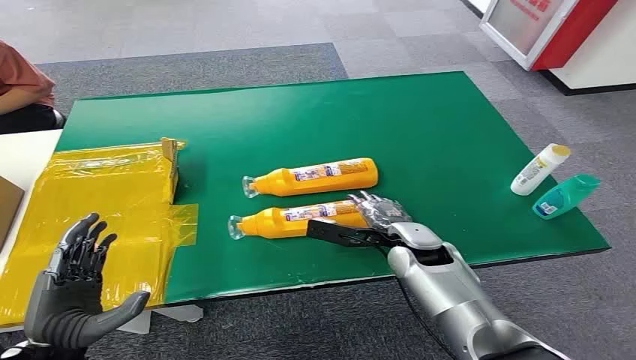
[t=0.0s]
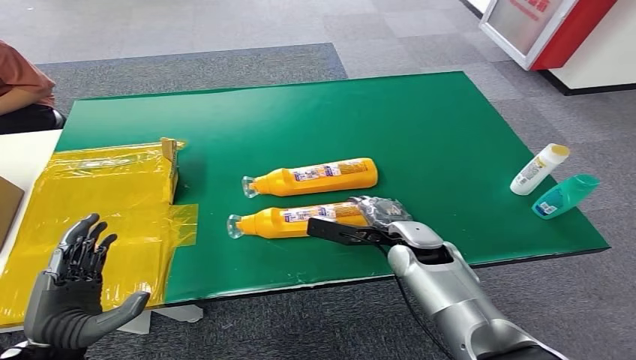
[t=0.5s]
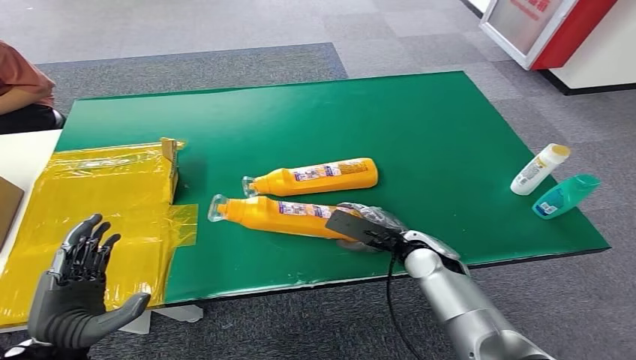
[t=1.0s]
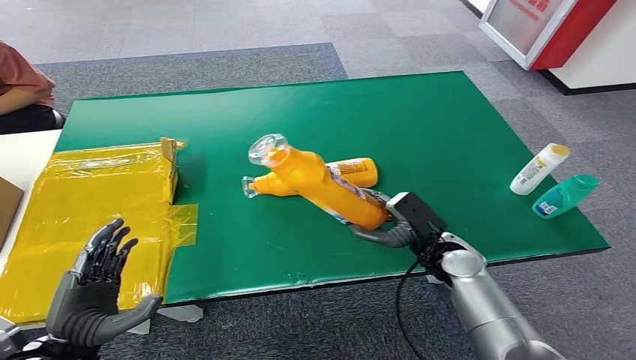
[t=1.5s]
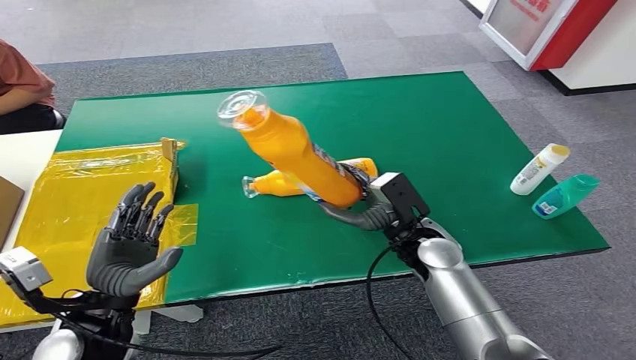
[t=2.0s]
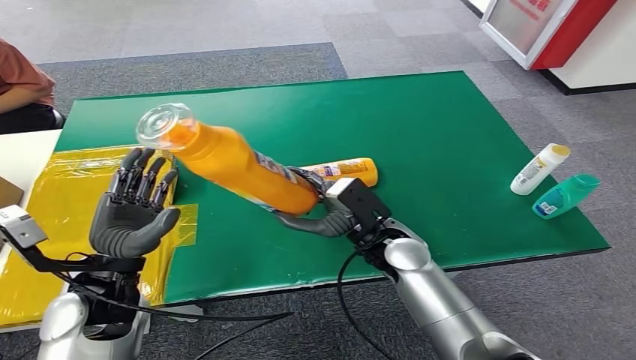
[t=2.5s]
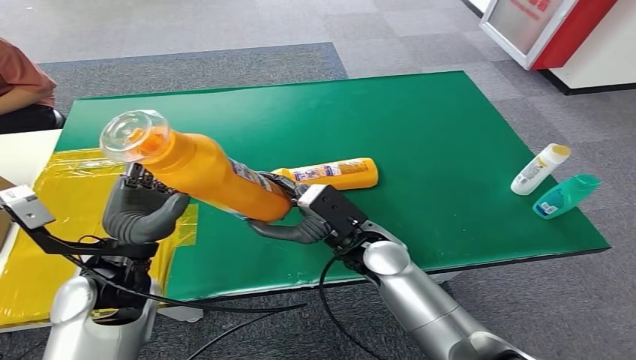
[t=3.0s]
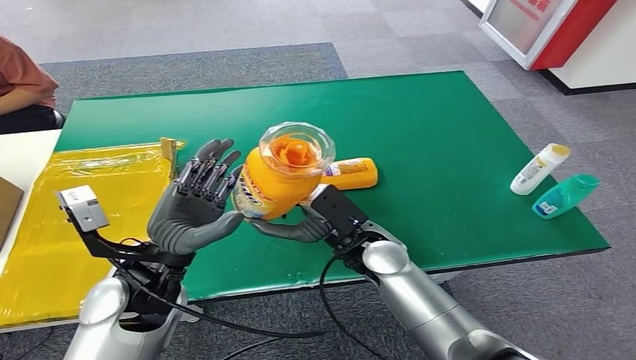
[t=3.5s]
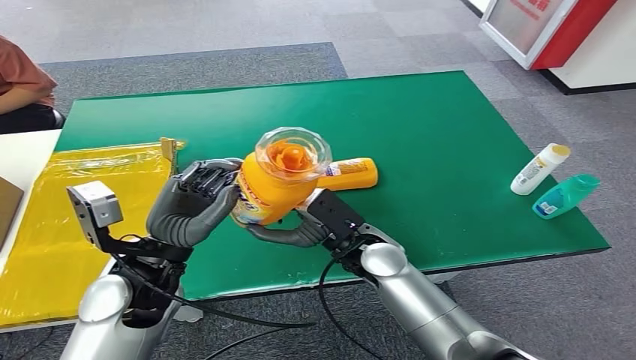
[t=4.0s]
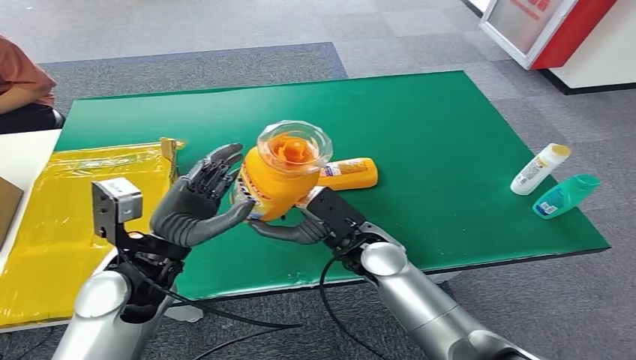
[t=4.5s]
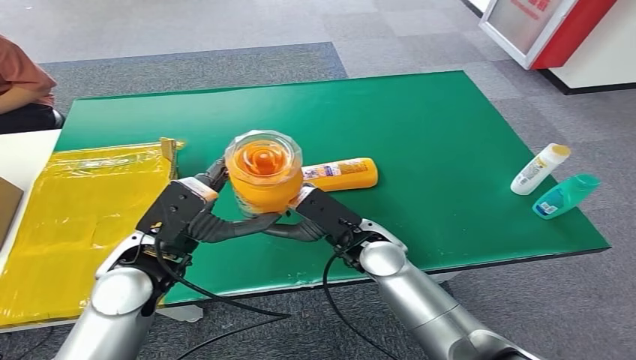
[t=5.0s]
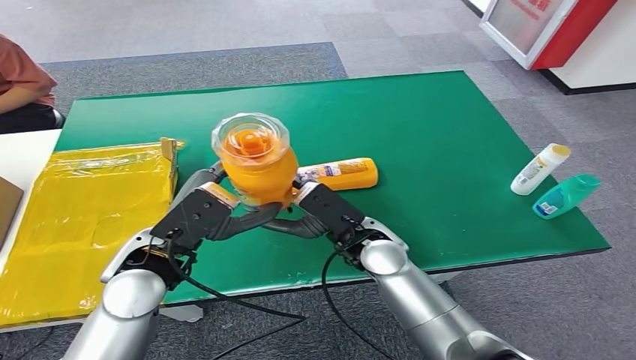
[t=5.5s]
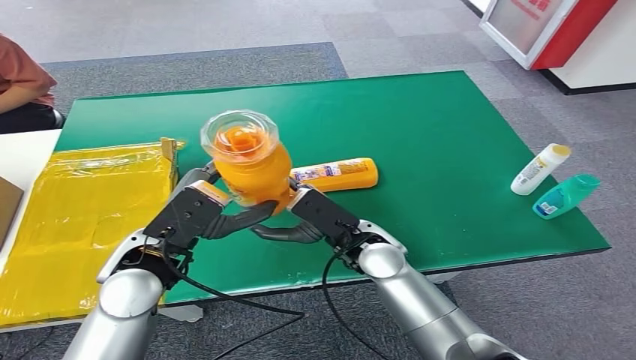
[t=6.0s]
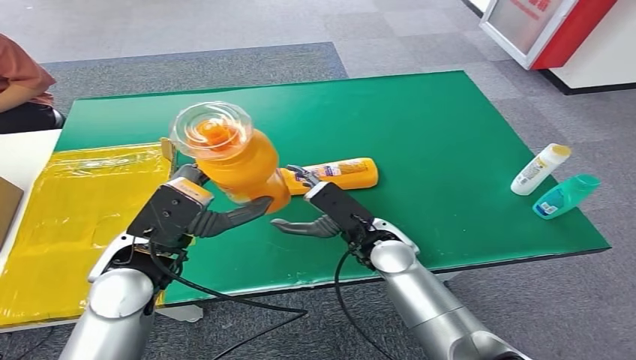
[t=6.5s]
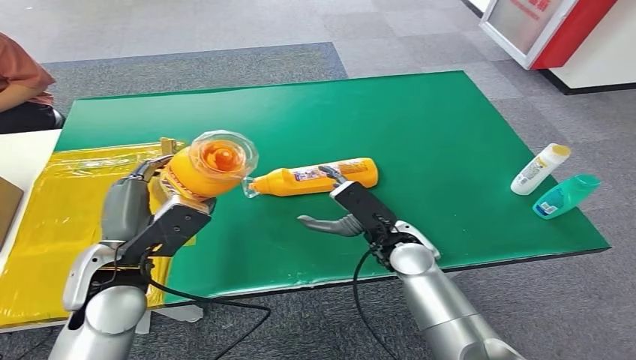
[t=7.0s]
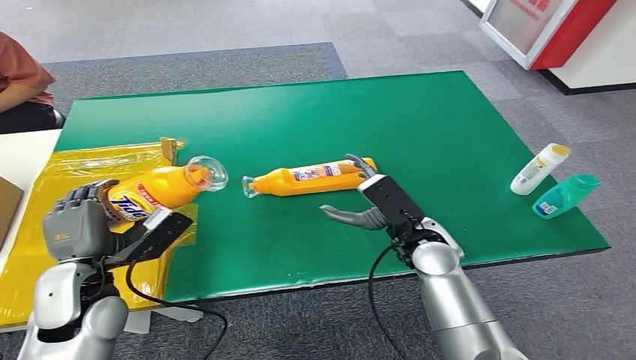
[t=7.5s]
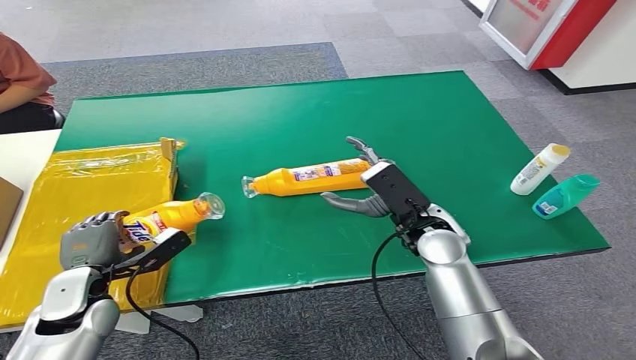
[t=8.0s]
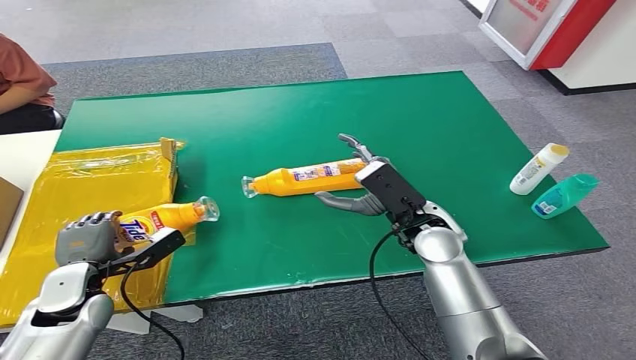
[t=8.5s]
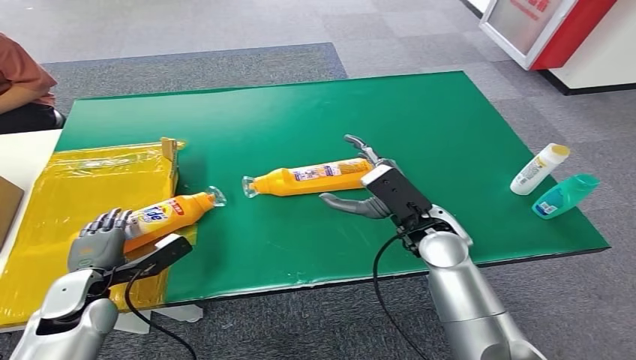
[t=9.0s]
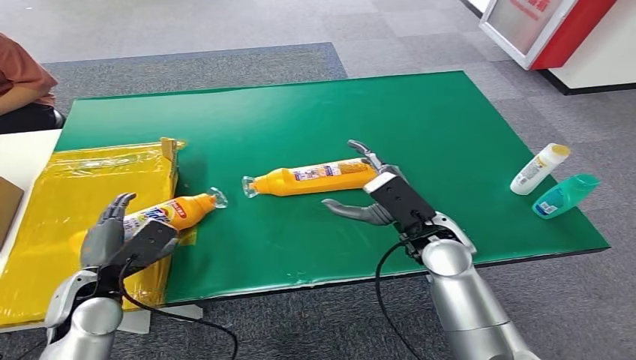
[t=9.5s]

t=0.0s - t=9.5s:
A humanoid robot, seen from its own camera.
Step, t=0.0s - t=1.5s: Pick up the bottle from the table.
Step, t=4.5s - t=9.5s: Turn the bottle to the front side.
t=7.5s - t=9.5s: The left hand goes roughly 5 cm downward.
